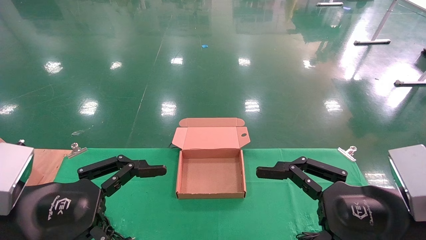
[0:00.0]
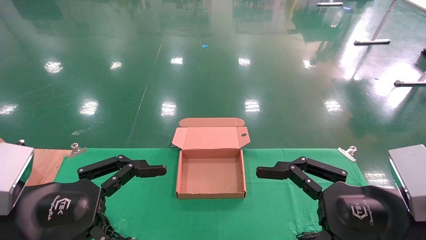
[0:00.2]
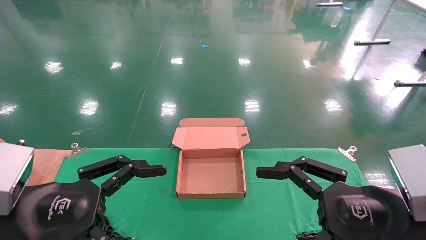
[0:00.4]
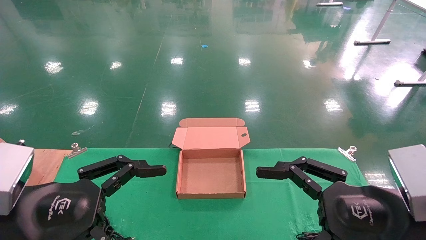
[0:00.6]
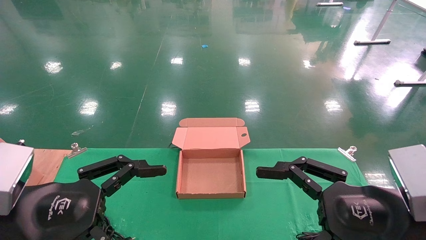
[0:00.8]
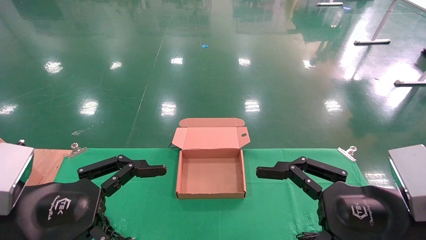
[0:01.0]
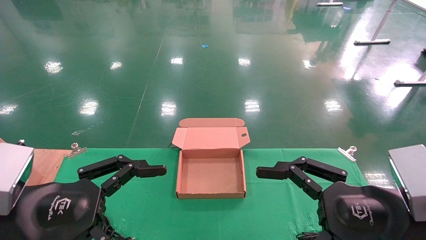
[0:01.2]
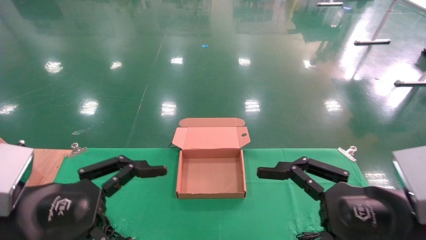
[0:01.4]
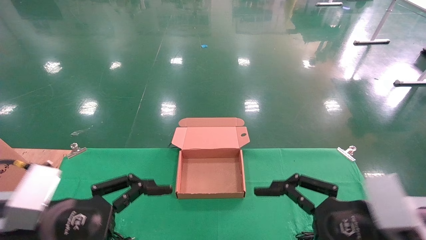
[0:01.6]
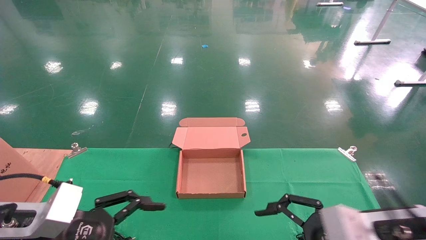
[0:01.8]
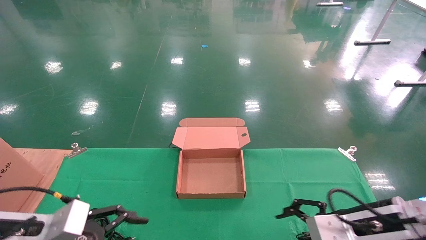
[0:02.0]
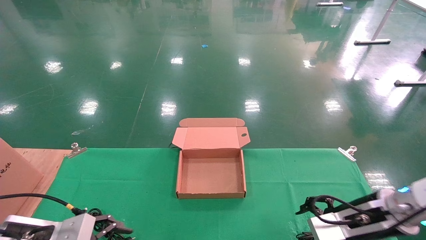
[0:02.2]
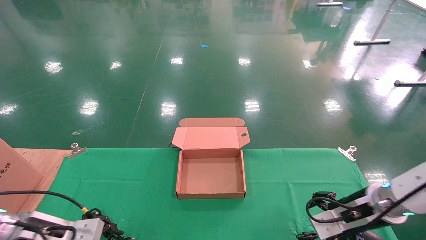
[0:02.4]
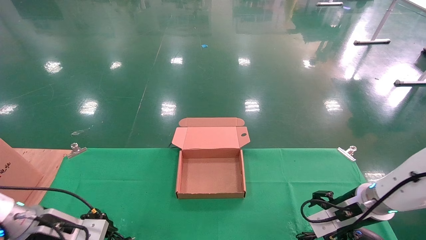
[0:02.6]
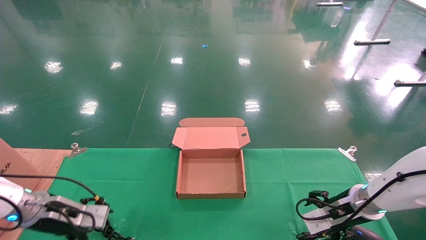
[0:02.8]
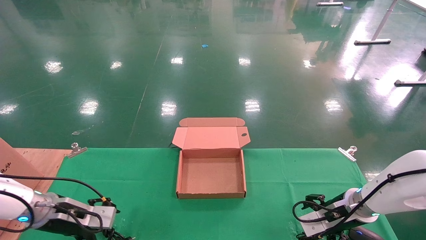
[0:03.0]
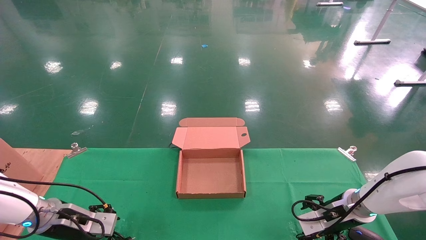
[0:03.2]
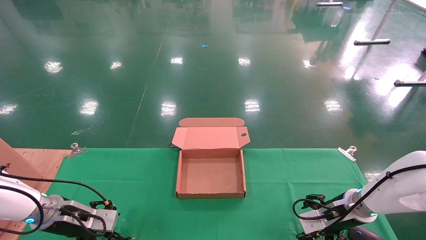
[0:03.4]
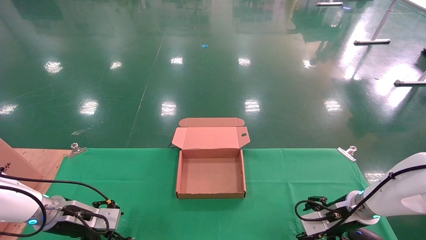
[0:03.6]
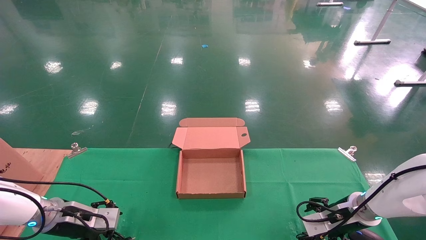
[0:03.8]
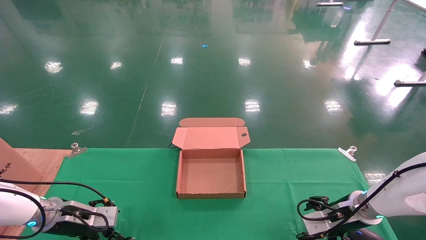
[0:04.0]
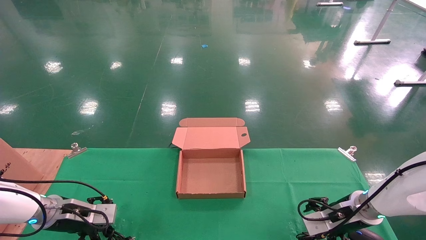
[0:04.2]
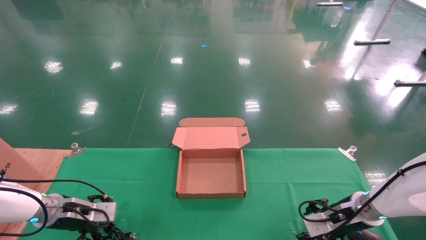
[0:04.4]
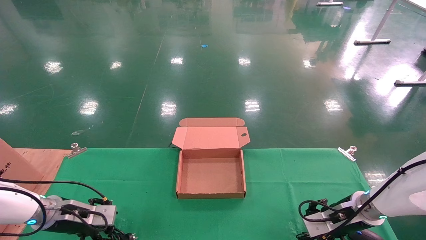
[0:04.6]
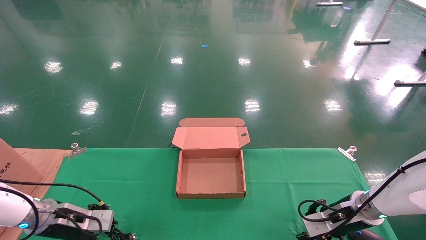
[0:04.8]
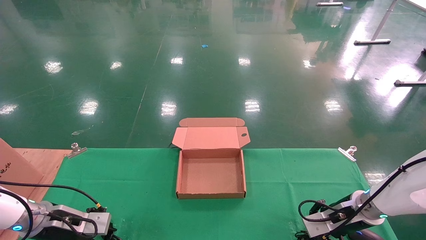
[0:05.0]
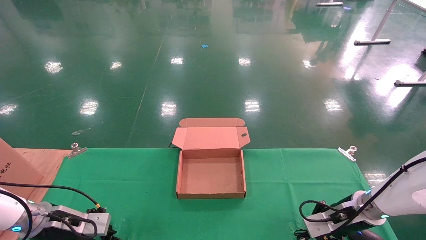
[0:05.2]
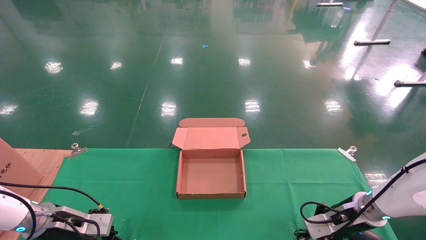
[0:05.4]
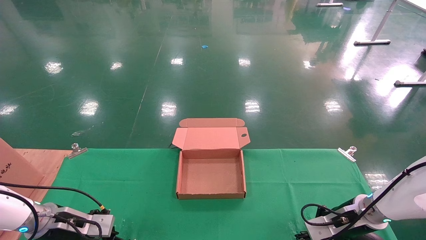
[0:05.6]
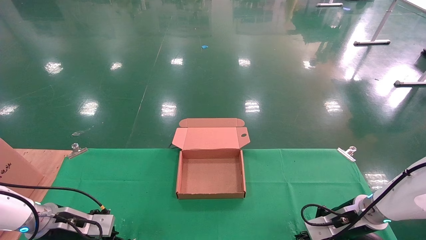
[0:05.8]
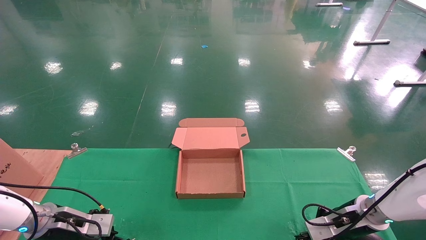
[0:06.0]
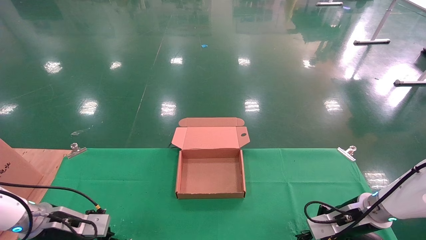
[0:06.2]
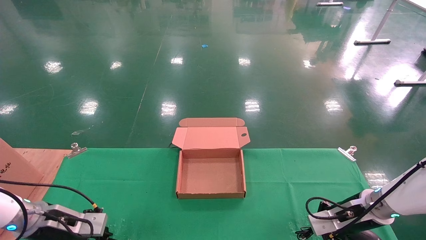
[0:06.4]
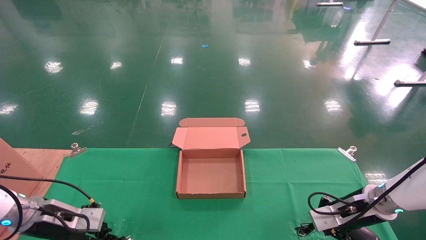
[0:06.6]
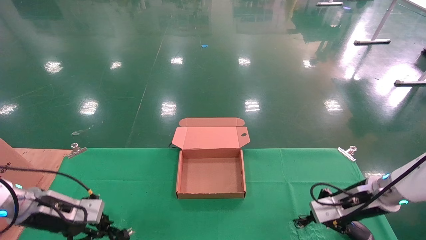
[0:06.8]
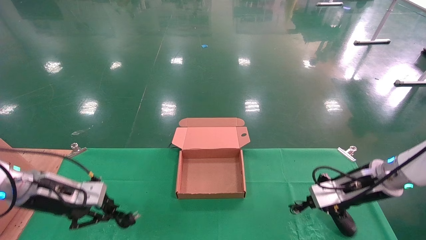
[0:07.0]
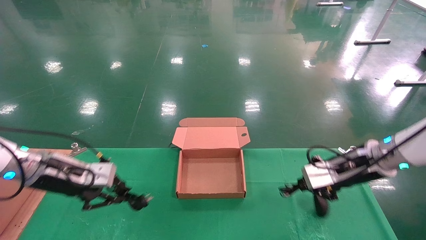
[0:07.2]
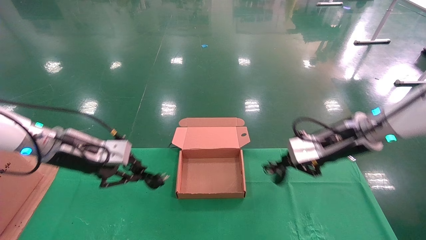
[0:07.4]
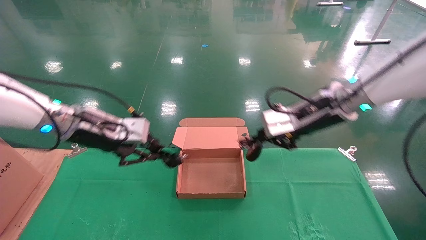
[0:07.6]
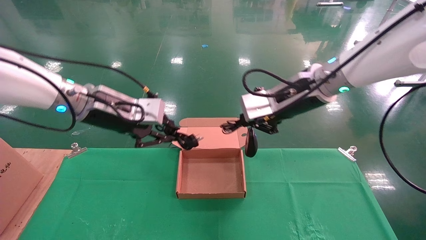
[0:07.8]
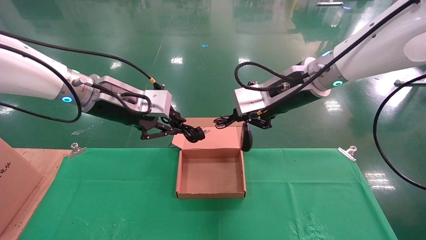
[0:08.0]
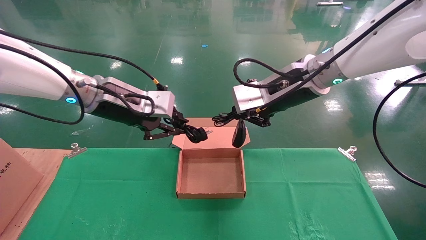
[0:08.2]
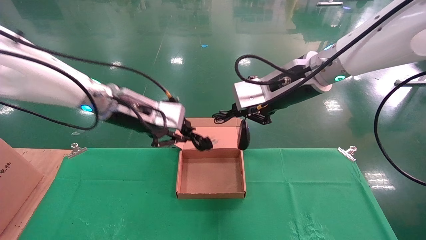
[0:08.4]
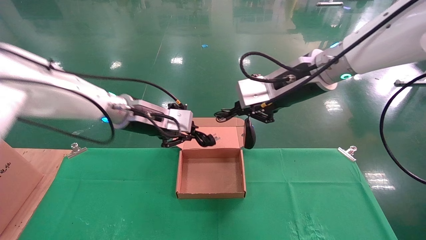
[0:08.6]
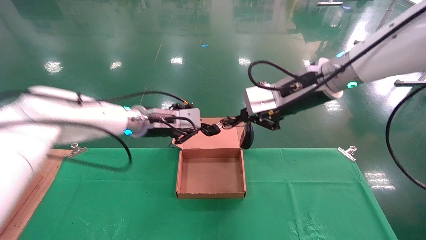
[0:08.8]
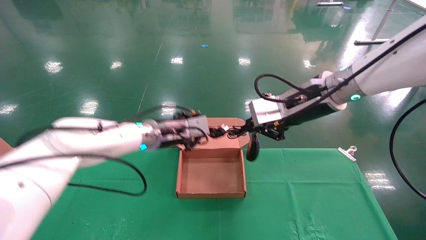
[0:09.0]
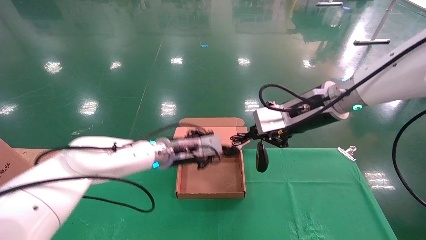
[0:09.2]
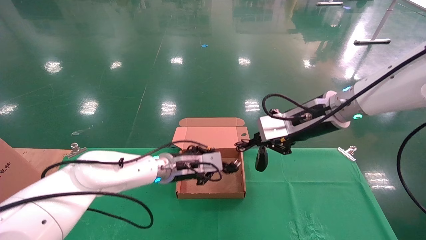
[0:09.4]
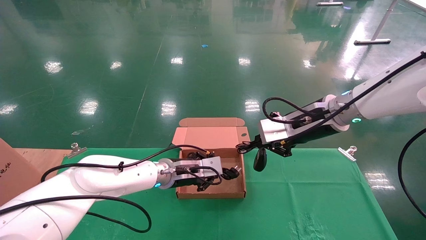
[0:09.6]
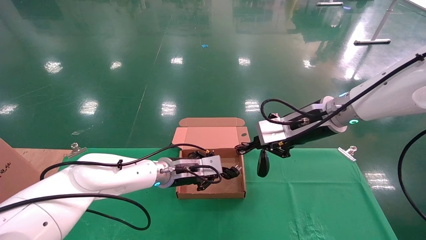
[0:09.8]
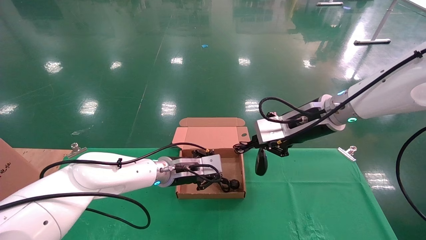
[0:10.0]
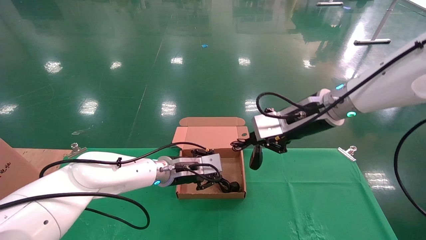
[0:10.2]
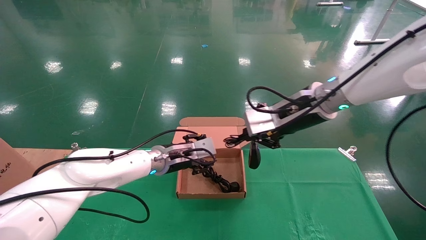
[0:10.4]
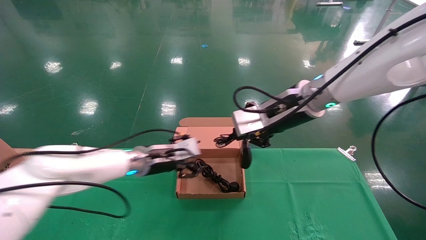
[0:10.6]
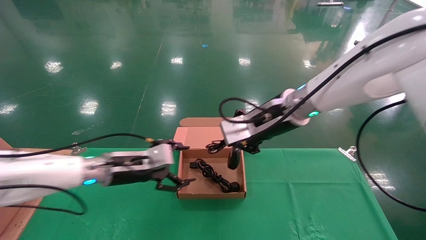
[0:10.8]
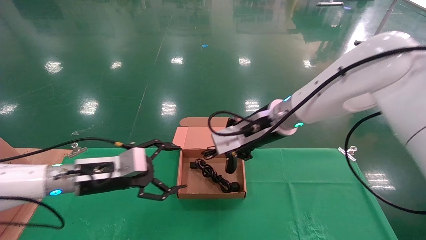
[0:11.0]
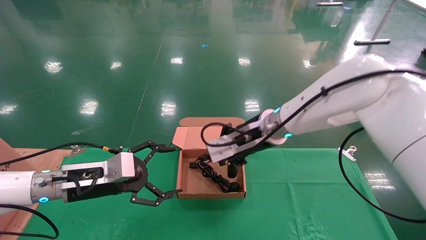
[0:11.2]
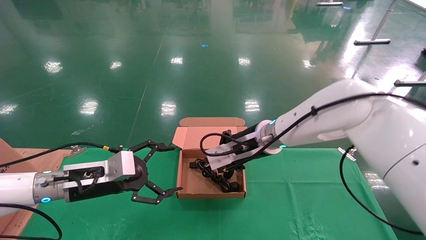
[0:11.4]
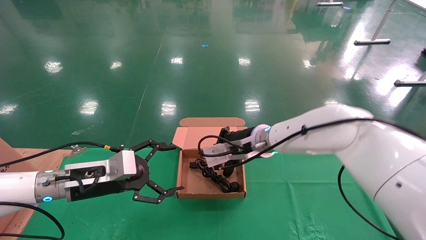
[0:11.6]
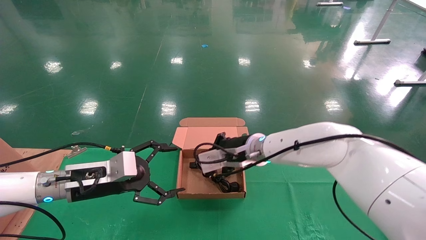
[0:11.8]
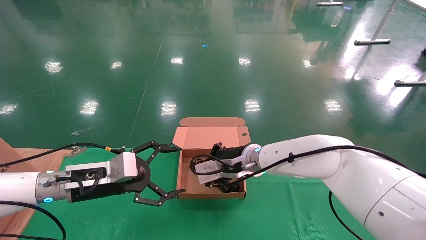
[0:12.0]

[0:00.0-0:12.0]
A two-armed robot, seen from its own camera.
Step, 0:02.0 to 0:07.0: Grab and lift both the mouse and power cord from the accessory packaging area at the same time.
0:00.0 to 0:01.6: The grippers stay close to where they were, moving slightly.
0:01.6 to 0:03.0: The right gripper heads forward and downward, covering some 25 cm, while the left gripper heads forward, downward and to the left, covering about 20 cm.
0:03.0 to 0:04.4: The grippers stay close to where they were, moving slightly.
0:04.4 to 0:06.0: The right gripper closes. The left gripper closes up.
0:06.0 to 0:07.6: The left gripper moves upward and to the right, about 25 cm. The right gripper heads upward and to the left, covering some 25 cm.
0:07.6 to 0:09.0: The left gripper moves to the right, forward and downward, some 15 cm.
0:09.0 to 0:10.4: The left gripper shifts approximately 5 cm downward, and opens its fingers.
0:10.4 to 0:12.0: The right gripper shifts approximately 20 cm downward, to the left and forward; the left gripper heads to the left and backward, covering some 15 cm, and opens its fingers.

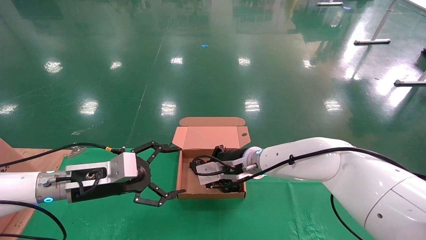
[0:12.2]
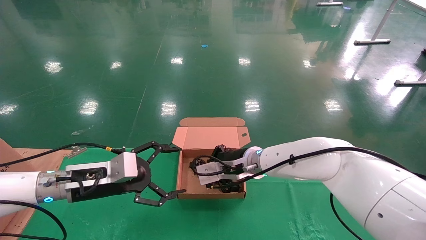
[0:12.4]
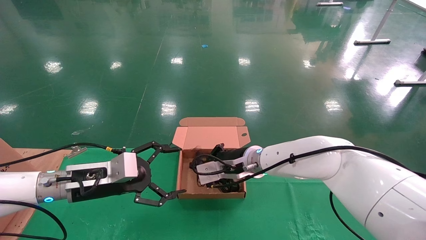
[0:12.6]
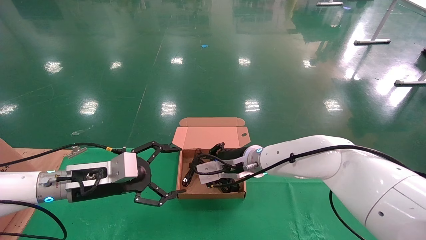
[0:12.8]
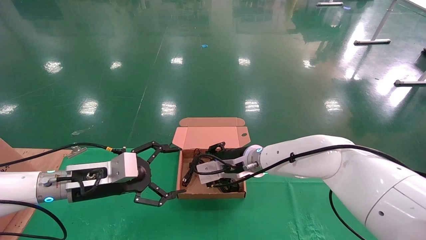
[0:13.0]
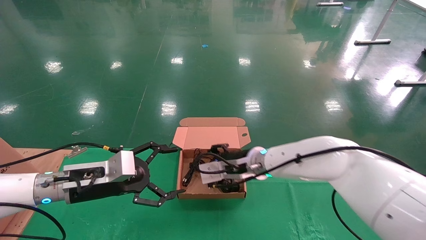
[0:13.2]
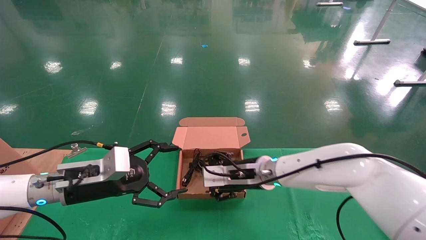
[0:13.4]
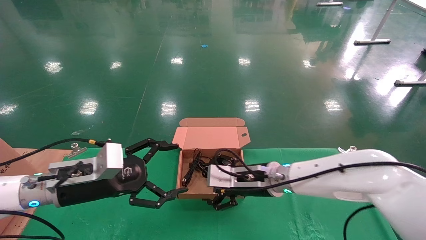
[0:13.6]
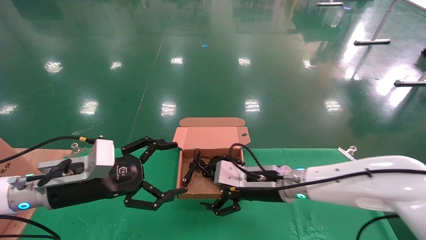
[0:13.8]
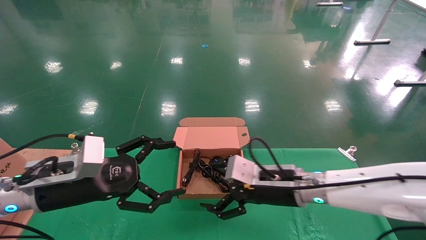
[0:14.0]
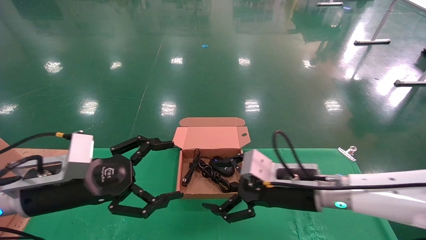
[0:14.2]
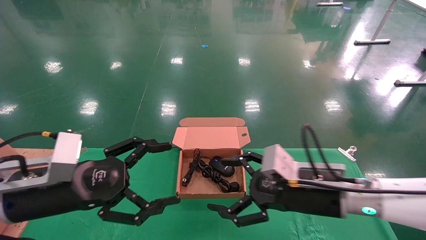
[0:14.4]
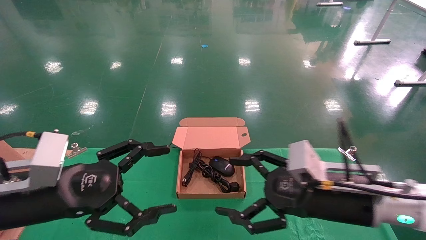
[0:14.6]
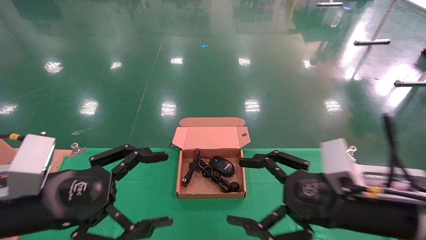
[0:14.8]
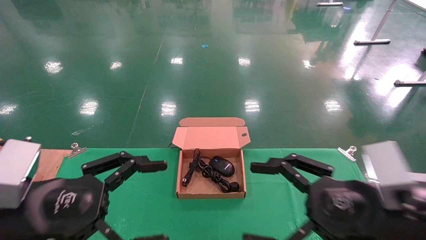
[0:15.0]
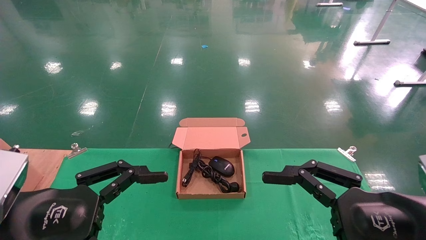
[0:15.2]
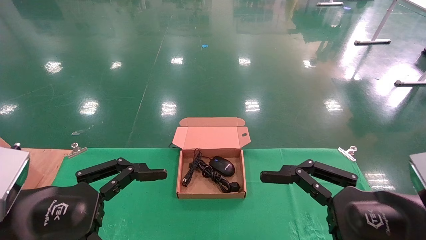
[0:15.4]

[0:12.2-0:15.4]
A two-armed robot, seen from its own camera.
0:12.2 to 0:13.8: The right gripper goes approximately 10 cm backward and to the right, and opens.
0:13.8 to 0:15.4: The left gripper heads backward, covering about 15 cm; the right gripper goes about 25 cm backward and to the right.
